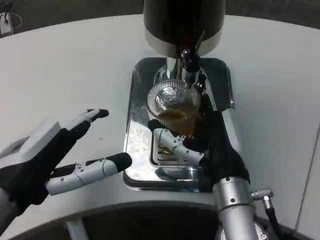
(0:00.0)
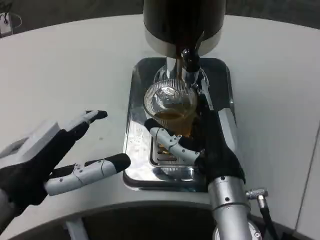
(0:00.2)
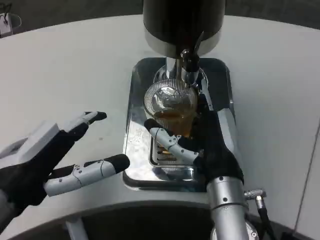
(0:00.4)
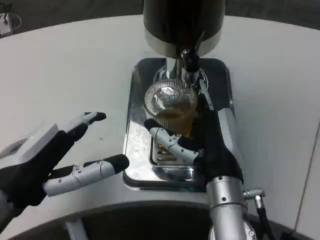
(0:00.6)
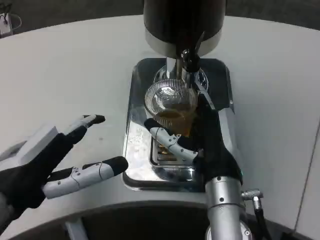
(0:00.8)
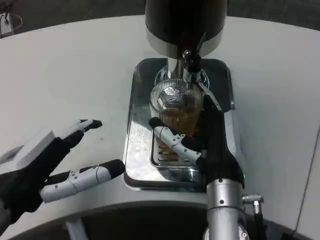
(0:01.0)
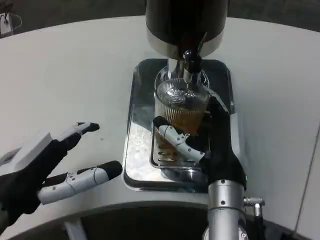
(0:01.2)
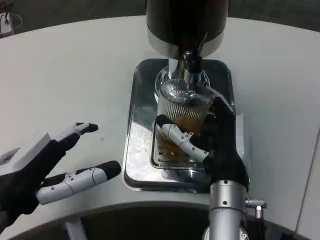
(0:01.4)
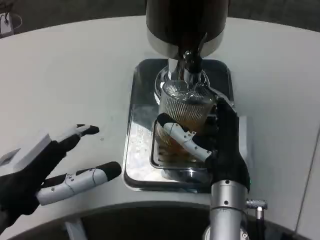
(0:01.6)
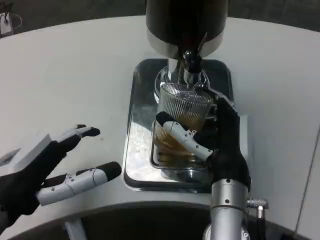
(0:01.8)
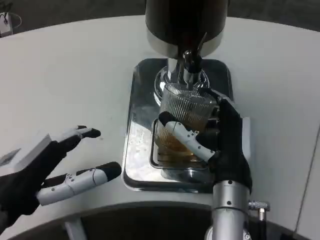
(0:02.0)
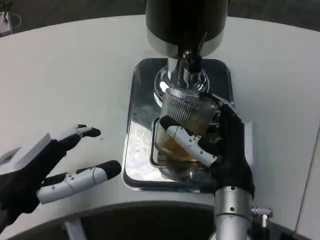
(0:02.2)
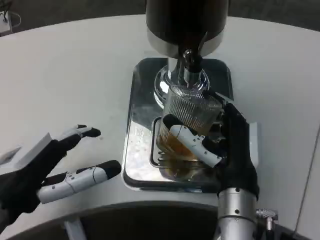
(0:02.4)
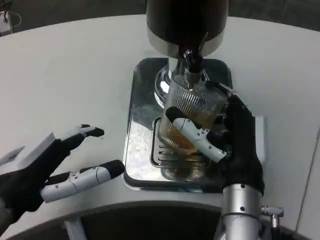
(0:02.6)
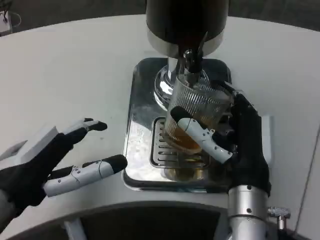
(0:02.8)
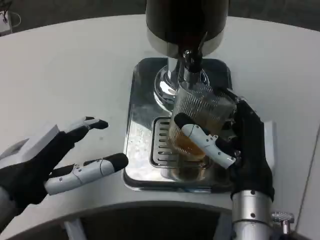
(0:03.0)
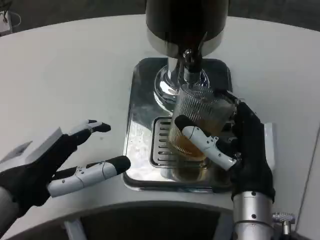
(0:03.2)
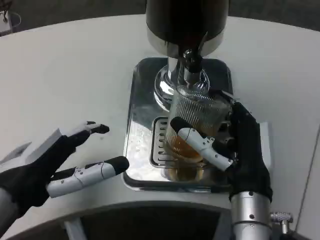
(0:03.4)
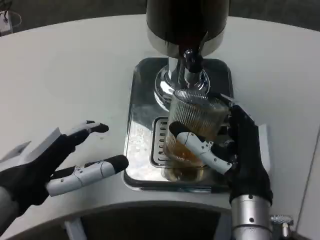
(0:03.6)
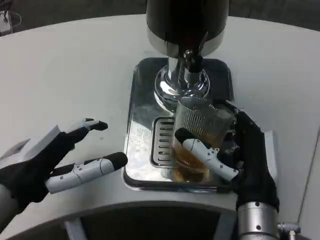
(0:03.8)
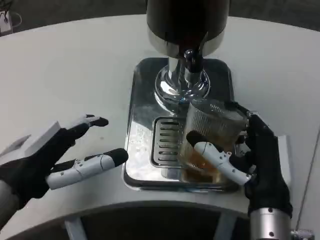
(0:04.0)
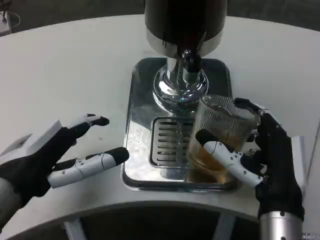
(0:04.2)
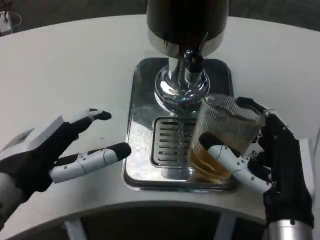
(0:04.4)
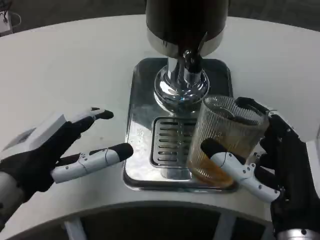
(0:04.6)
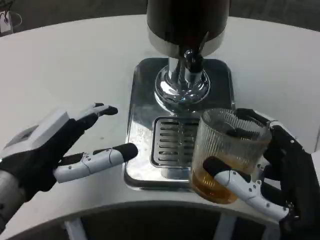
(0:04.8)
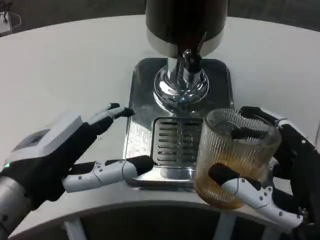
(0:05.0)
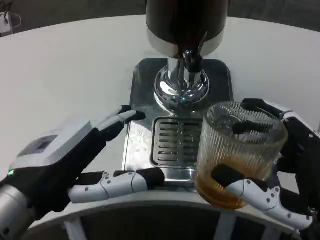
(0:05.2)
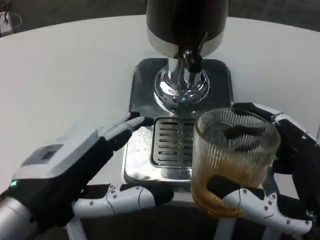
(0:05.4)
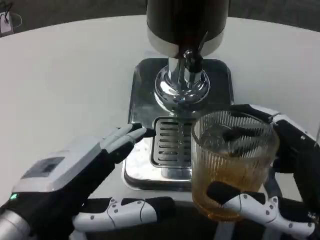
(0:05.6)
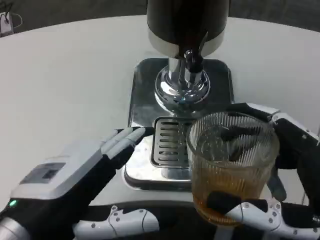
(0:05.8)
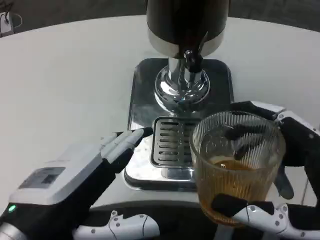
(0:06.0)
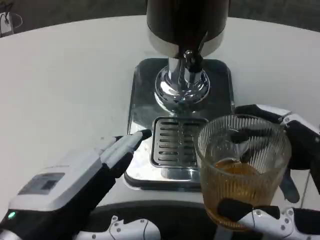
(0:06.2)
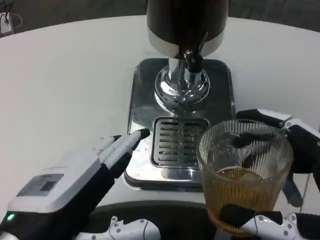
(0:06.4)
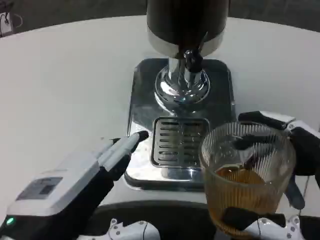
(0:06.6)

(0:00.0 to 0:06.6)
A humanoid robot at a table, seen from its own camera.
Task of the whole recording: Grasp the cup under the faucet to collect the drink, then remove the cup.
0:03.2 - 0:05.0: The right hand goes approximately 10 cm backward and to the right.
0:05.0 - 0:06.6: The left hand heads backward, covering about 5 cm. Meanwhile the right hand shifts by about 5 cm.

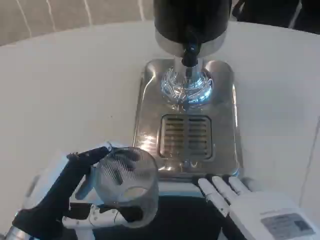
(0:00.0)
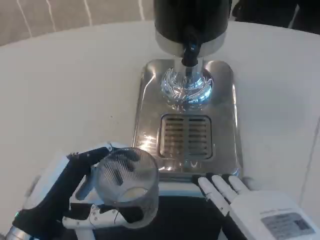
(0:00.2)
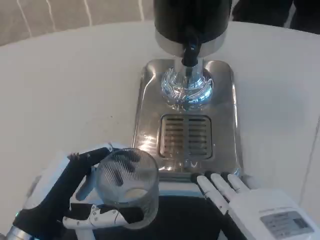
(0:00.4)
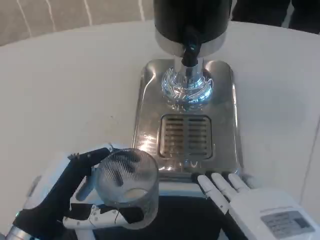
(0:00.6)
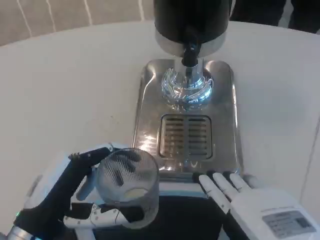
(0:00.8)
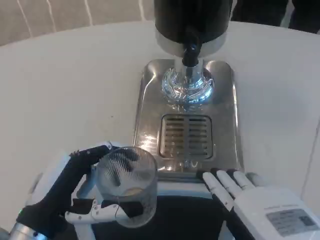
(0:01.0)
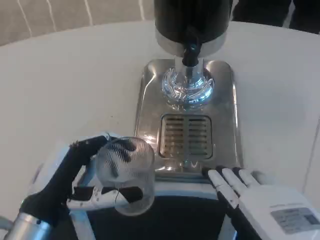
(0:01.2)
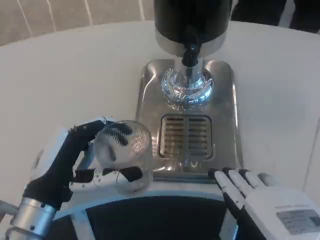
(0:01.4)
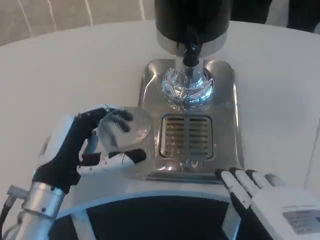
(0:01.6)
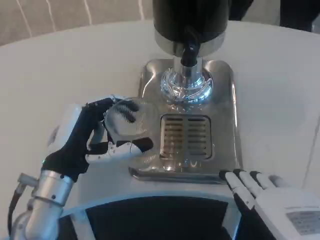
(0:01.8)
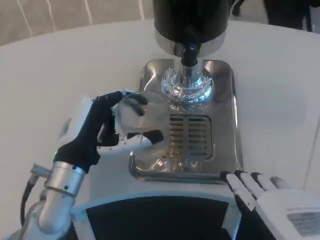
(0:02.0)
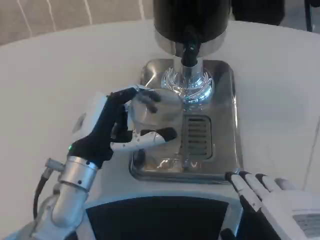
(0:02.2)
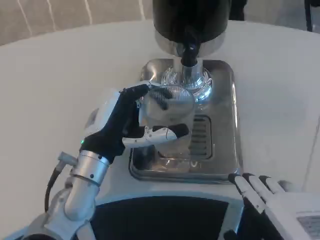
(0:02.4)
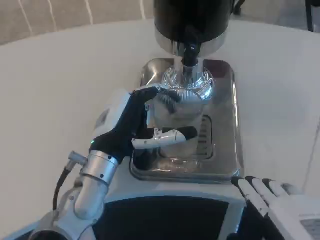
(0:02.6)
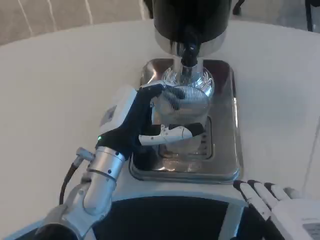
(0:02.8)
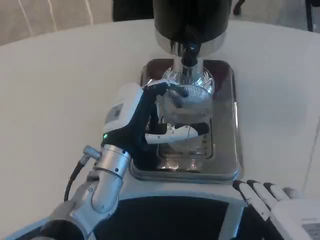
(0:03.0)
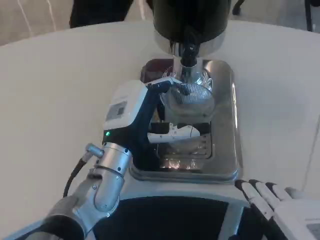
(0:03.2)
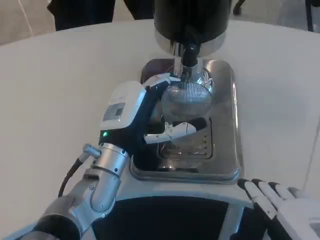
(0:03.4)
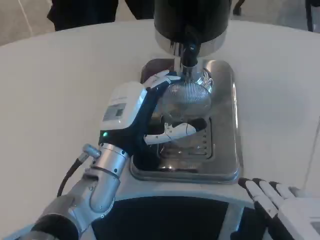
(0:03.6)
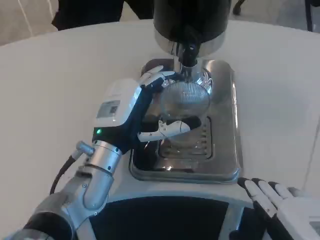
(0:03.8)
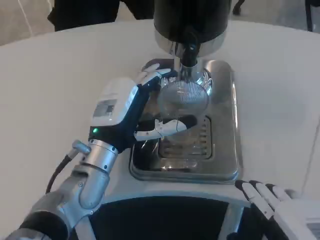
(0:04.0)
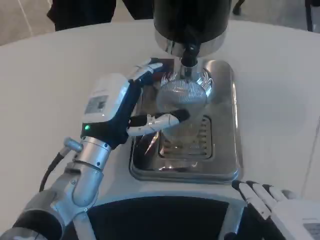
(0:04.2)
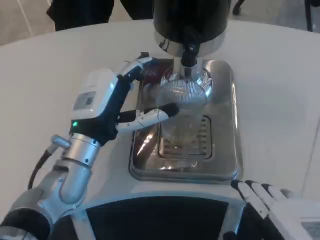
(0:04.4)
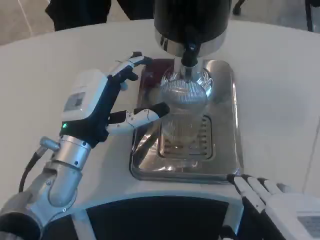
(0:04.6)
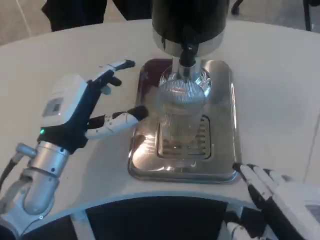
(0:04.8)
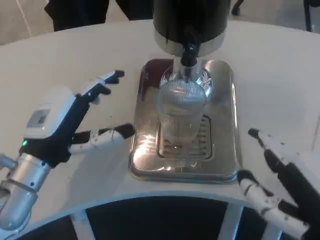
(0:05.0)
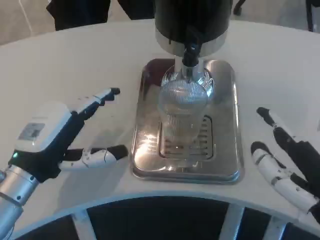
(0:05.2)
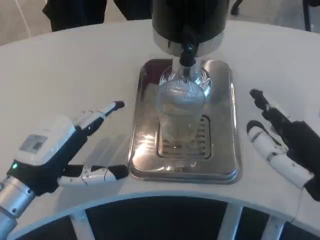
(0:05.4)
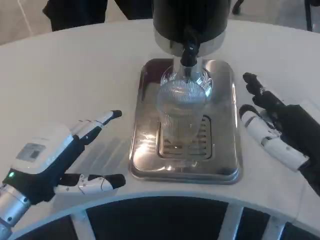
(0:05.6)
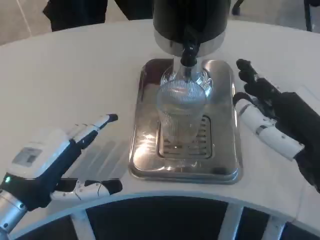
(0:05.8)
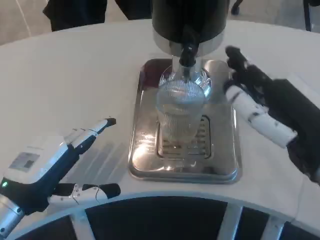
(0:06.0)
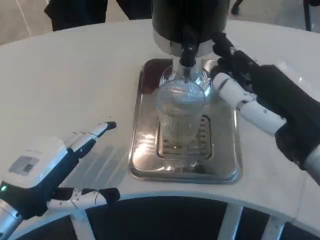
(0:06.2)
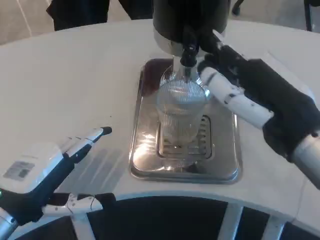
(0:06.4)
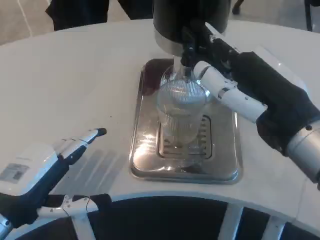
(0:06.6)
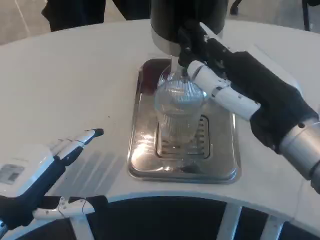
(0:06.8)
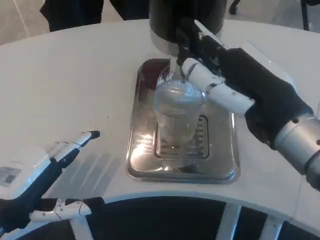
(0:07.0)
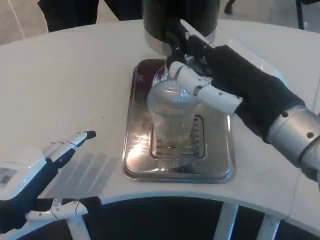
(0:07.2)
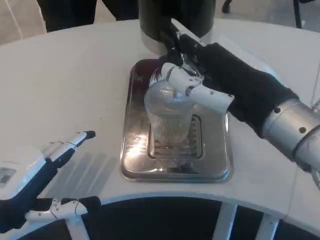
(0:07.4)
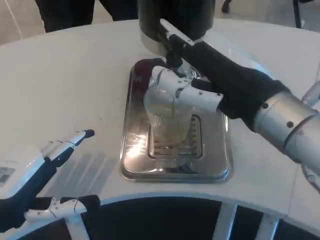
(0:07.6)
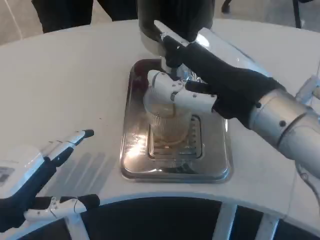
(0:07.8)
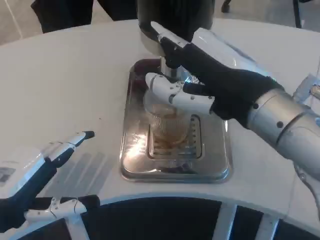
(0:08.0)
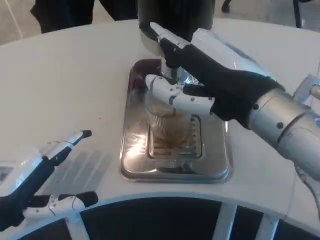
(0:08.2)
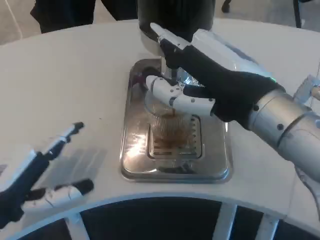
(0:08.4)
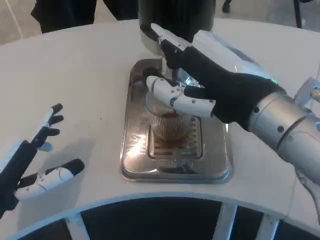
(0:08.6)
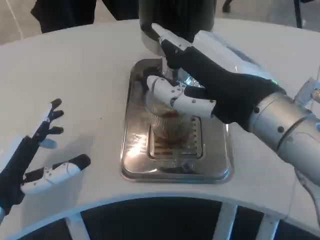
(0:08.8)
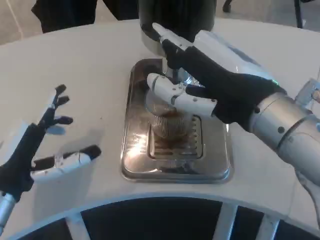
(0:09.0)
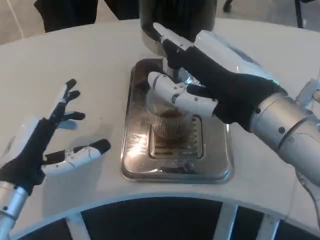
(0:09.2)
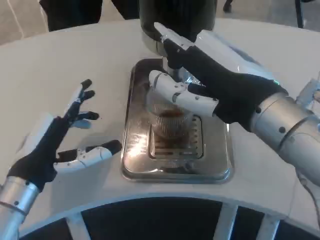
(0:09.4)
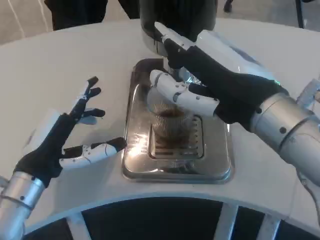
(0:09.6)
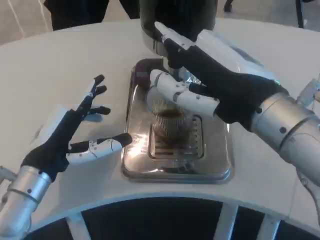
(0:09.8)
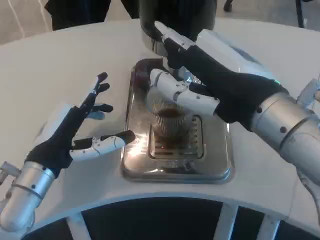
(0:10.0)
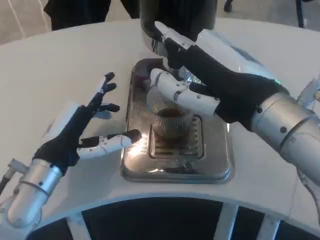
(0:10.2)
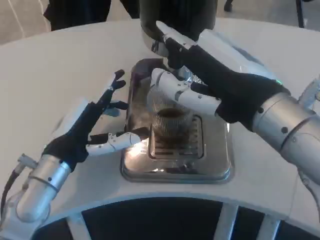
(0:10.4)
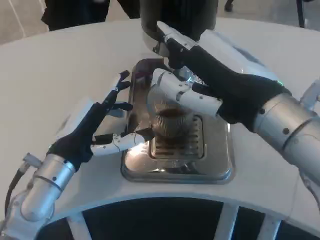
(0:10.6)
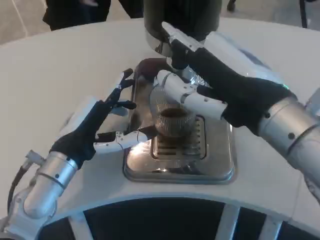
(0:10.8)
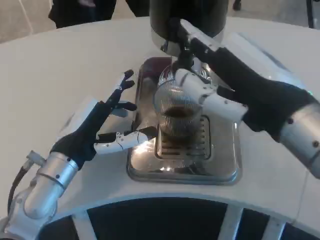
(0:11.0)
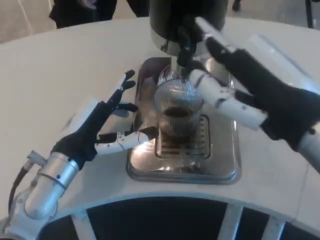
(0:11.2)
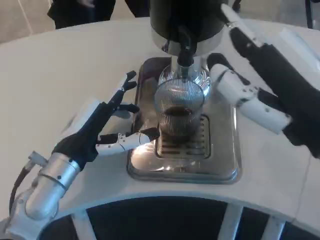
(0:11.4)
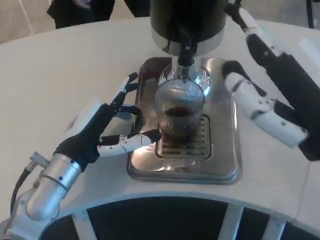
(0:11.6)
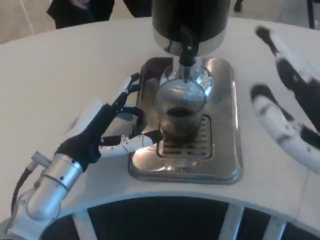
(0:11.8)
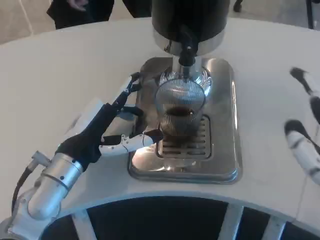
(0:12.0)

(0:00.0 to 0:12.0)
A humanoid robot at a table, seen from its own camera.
Task of the whole recording: Grasp the cup under the faucet to collect the drink, then remove the cup.
0:00.0 - 0:01.6: The left hand heads forward, covering some 5 cm.
0:01.6 - 0:03.0: The left hand shifts roughly 10 cm to the right and forward.
0:03.0 - 0:04.4: The left hand ends up approximately 5 cm from where it was.
0:04.4 - 0:06.0: The left hand goes approximately 15 cm to the left and backward, while the right hand goes roughly 10 cm forward and upward.
0:06.0 - 0:07.6: The right hand goes approximately 5 cm to the left.
0:09.0 - 0:10.4: The left hand moves forward and to the right, roughly 10 cm.
0:10.4 - 0:12.0: The right hand moves backward, to the right and downward, about 15 cm.

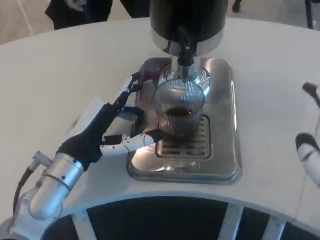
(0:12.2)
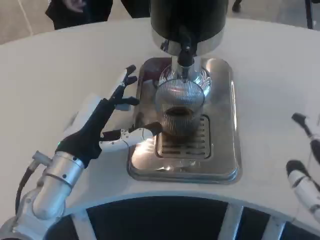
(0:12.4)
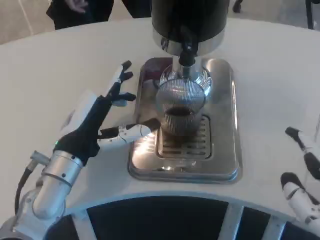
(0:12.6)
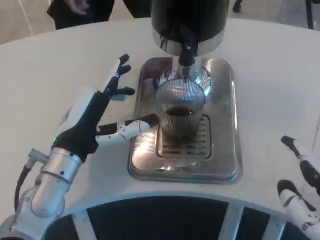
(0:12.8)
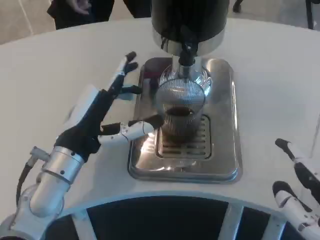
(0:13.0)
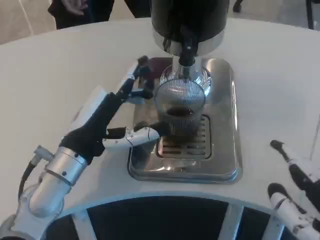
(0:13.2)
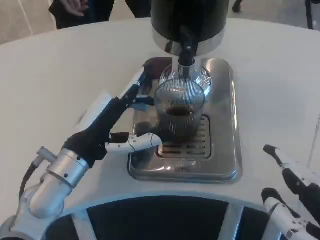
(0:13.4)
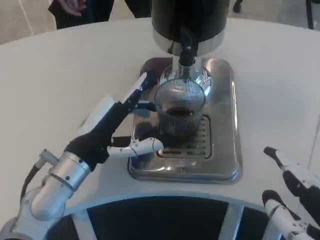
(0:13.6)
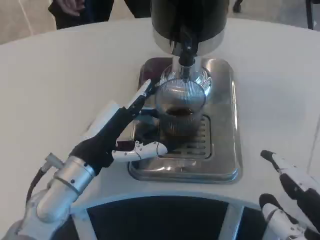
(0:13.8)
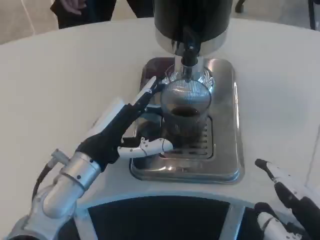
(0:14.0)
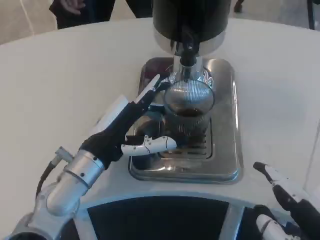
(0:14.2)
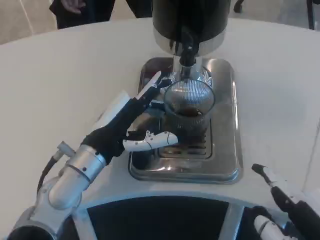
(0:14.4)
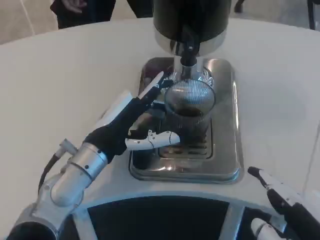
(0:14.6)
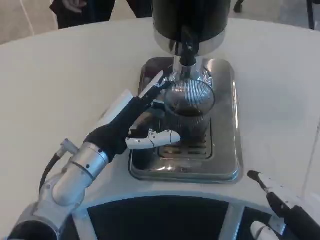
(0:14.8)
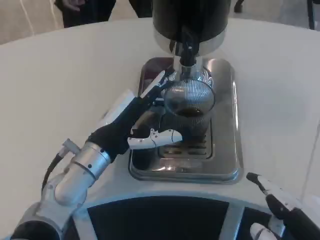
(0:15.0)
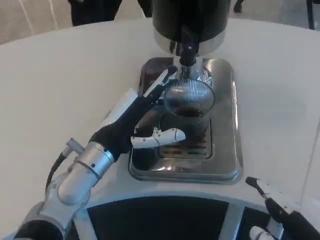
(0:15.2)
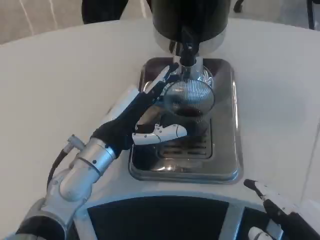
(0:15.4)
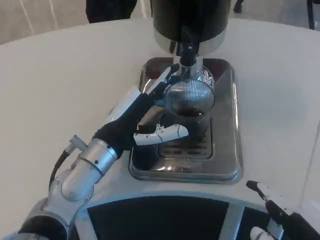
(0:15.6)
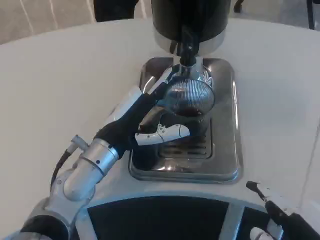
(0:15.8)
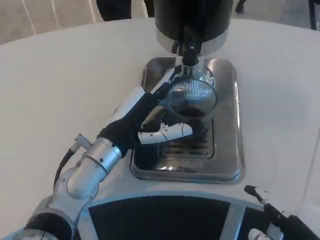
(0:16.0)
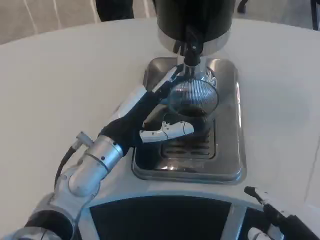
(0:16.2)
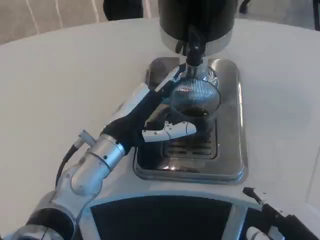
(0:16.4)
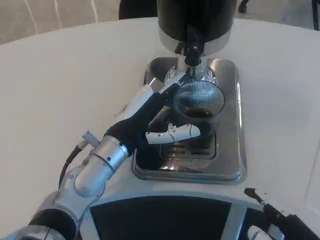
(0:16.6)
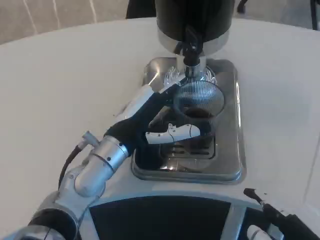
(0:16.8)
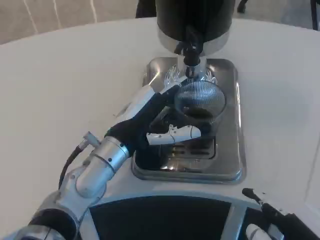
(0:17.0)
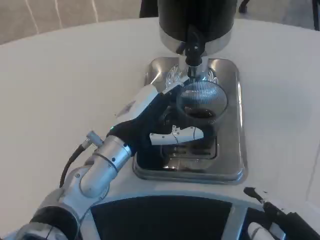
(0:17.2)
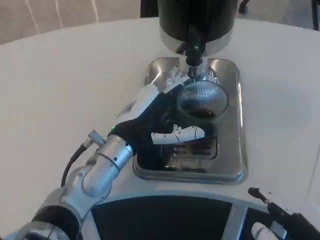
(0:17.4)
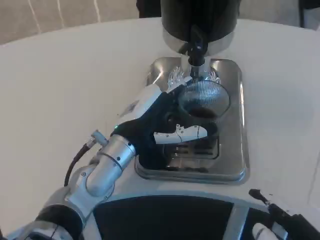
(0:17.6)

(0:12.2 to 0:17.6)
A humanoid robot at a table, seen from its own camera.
Task of the whole recording: Grasp the cup under the faucet to collect the drink, then remove the cup.
0:12.2 - 0:13.6: The hands make only small movements.
0:13.6 - 0:16.2: There are only small adjustments of the hands.
0:16.2 - 0:17.6: The hands move only a little.
